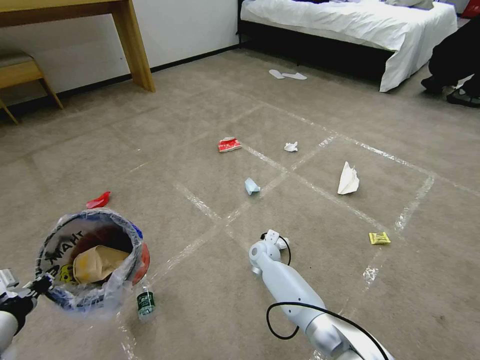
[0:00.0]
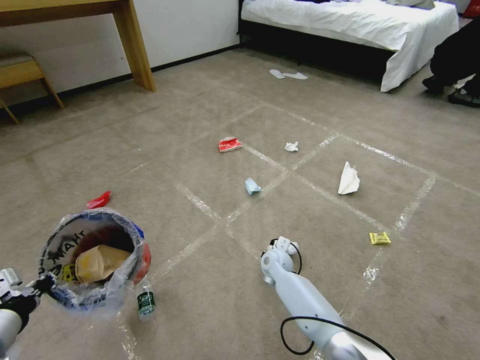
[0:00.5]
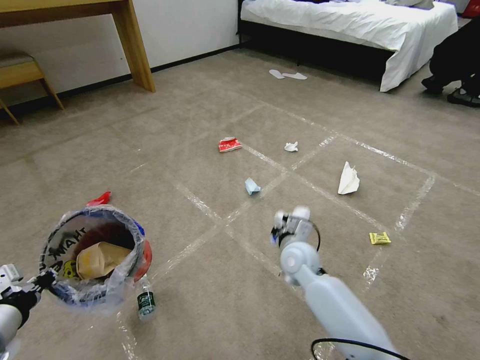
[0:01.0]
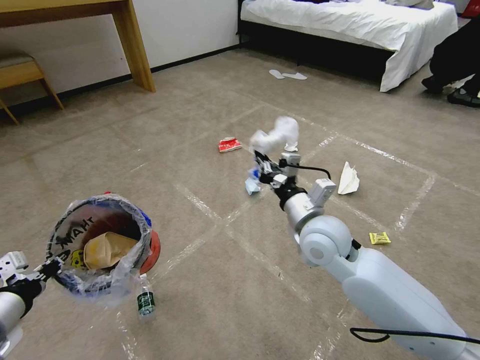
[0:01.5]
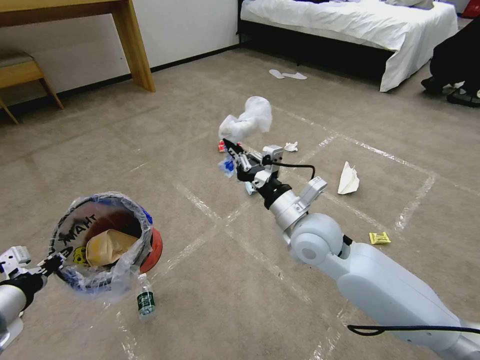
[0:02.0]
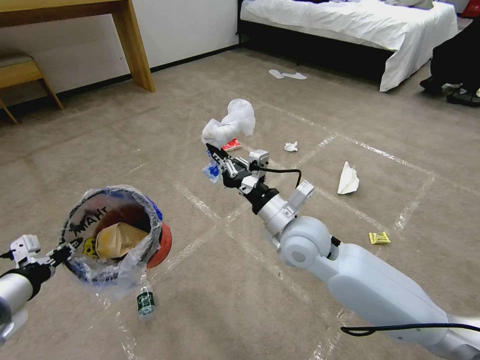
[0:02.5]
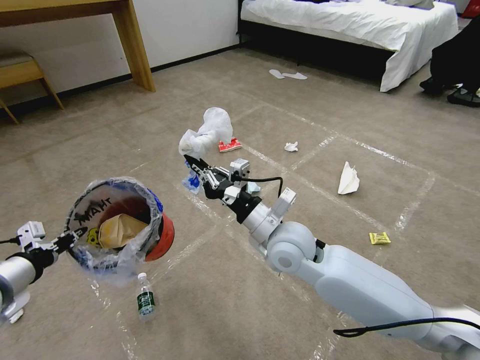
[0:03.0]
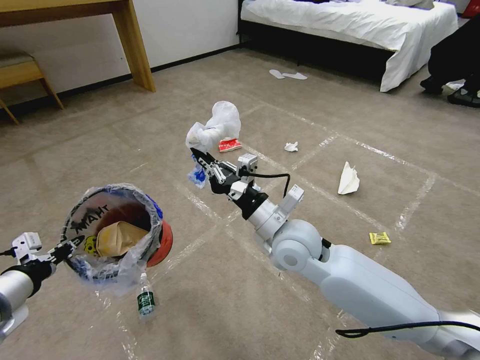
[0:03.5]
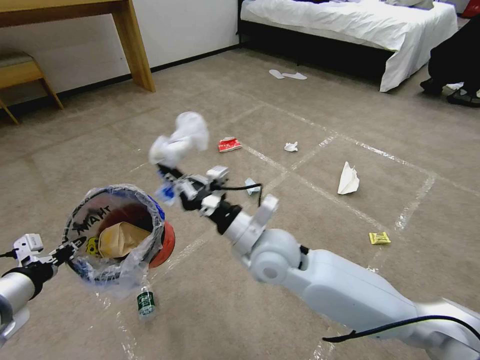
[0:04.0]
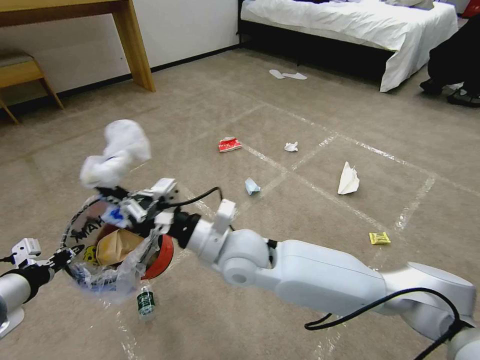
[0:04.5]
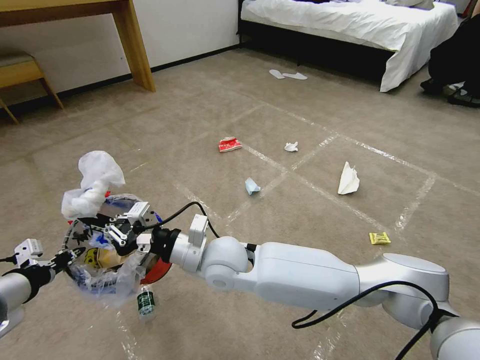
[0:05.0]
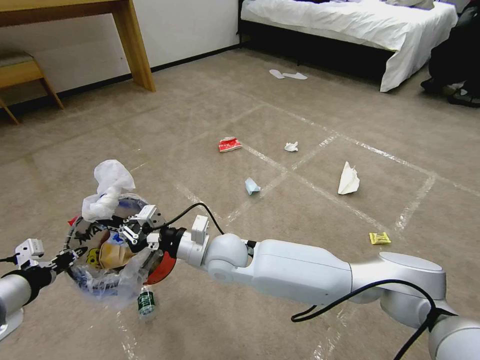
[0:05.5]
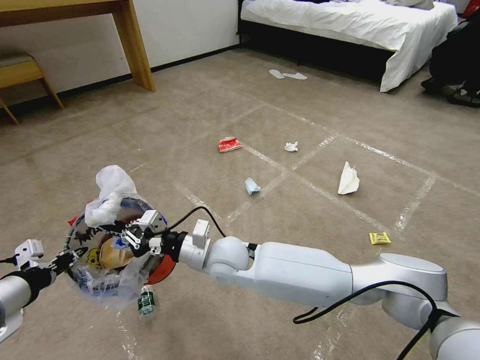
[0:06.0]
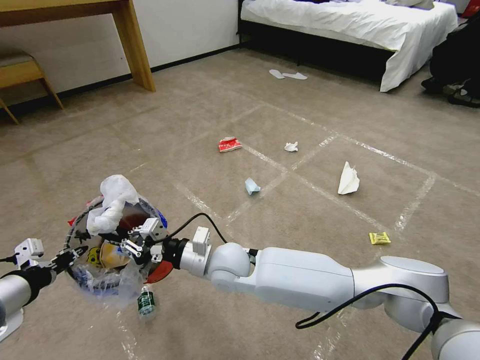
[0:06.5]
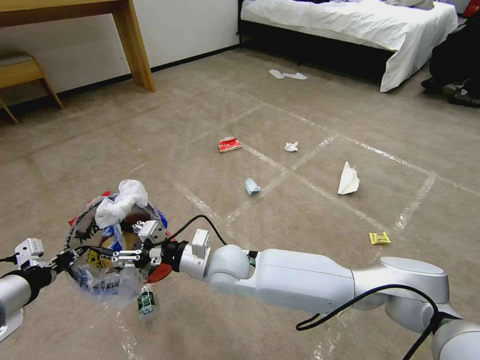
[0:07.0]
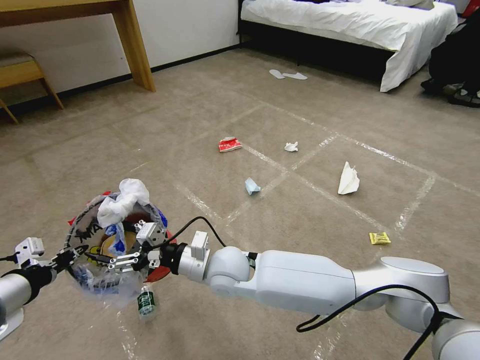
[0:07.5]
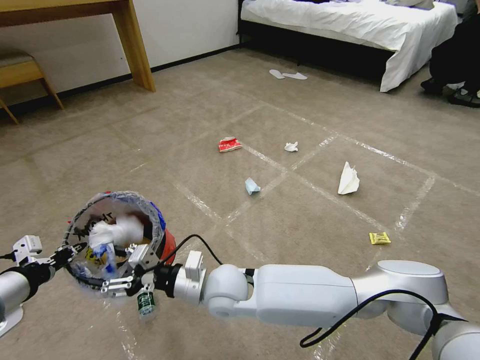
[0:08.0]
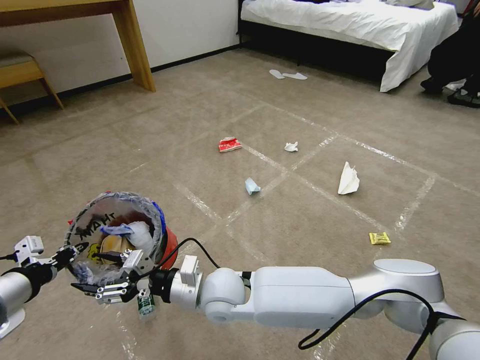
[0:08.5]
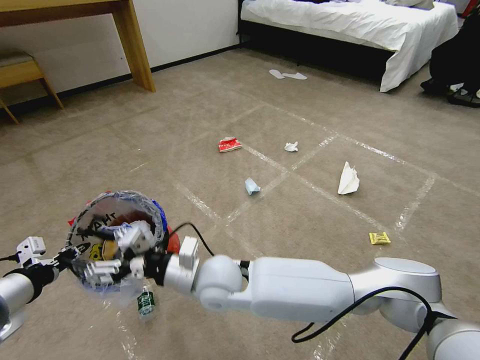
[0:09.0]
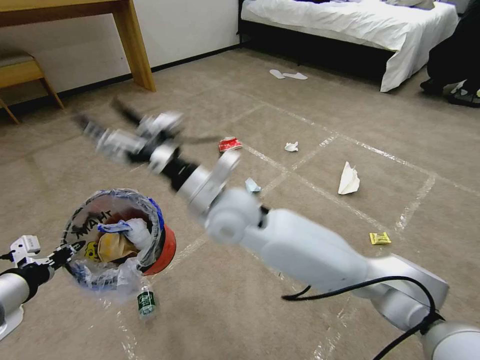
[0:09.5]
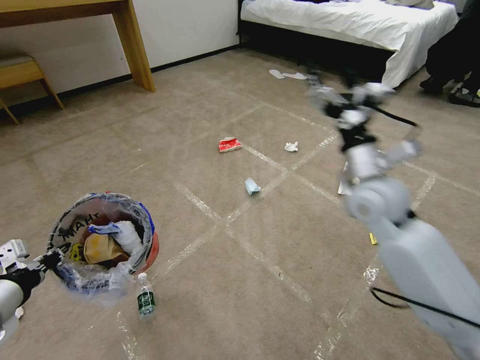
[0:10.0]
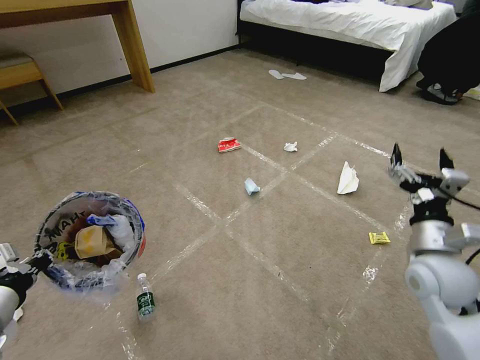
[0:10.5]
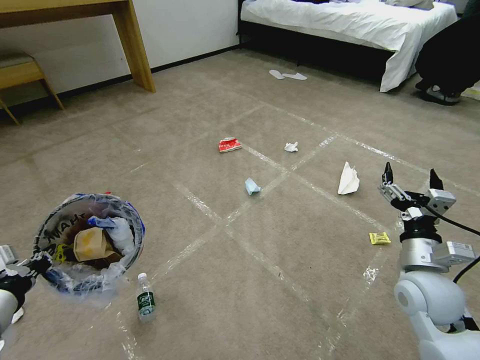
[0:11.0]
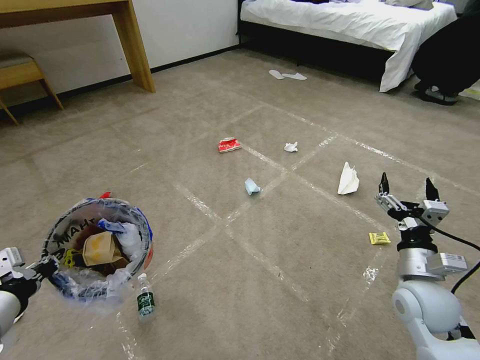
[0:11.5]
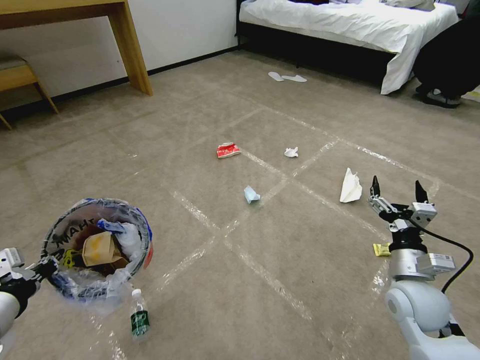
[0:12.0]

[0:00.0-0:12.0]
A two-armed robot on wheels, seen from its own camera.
Task of the whole recording: Pick up the trash bin and place the garbage on the floor into it.
0:00.0 to 0:02.0: The right gripper heads upward and backward, covering some 30 cm.
0:02.0 to 0:04.0: The right gripper shifts roughly 10 cm to the left.
0:04.0 to 0:06.0: The right gripper moves to the left and downward, roughly 10 cm.
0:06.0 to 0:08.0: The right gripper is displaced backward by about 5 cm, and opens.
0:08.0 to 0:10.0: The right gripper goes approximately 35 cm to the right and upward.
0:10.0 to 0:12.0: The right gripper goes about 25 cm downward, backward and to the right.

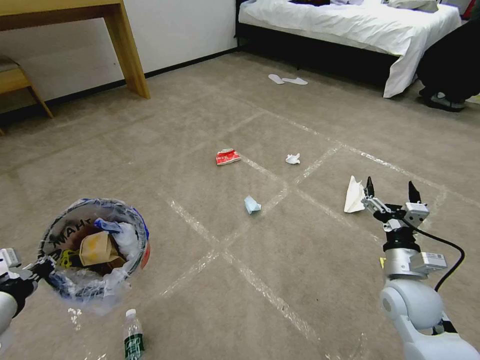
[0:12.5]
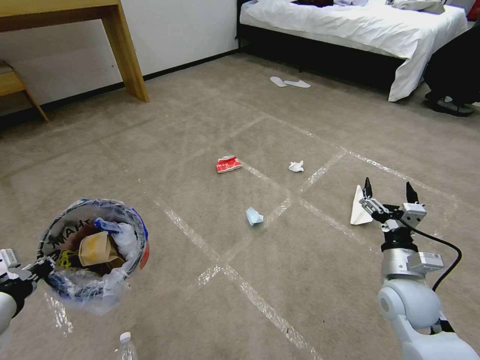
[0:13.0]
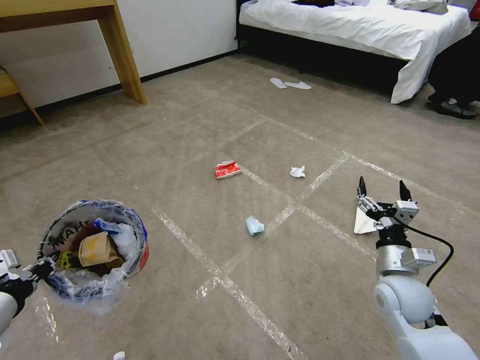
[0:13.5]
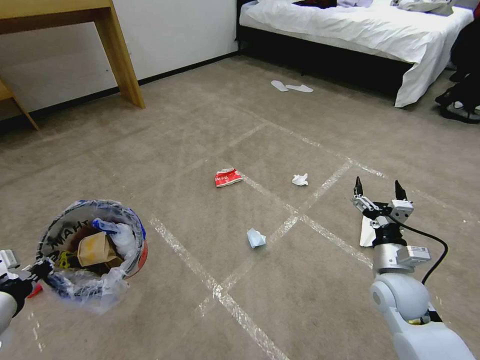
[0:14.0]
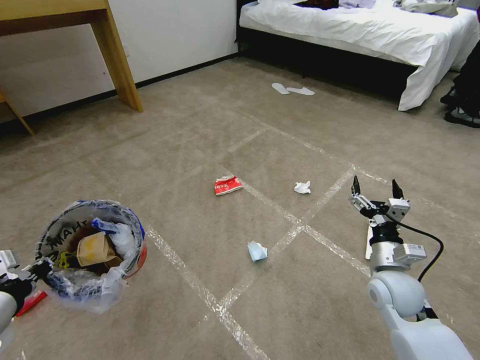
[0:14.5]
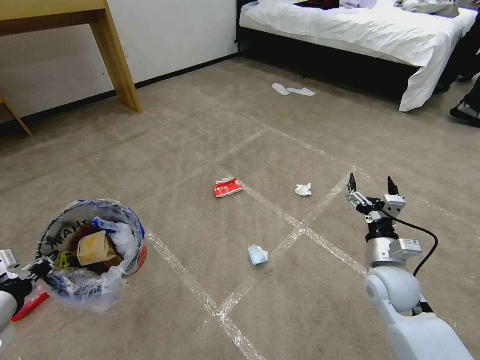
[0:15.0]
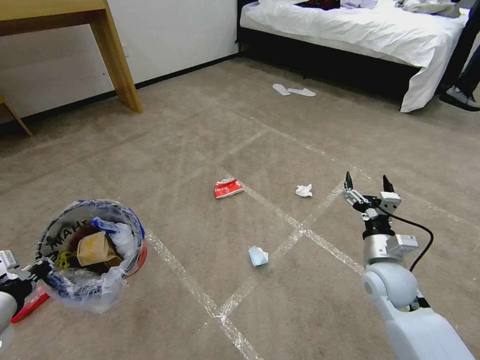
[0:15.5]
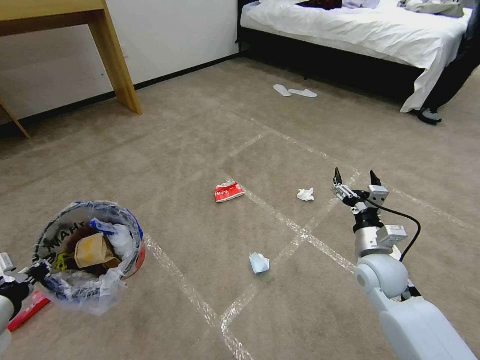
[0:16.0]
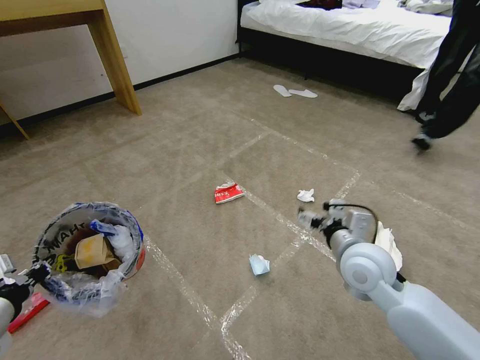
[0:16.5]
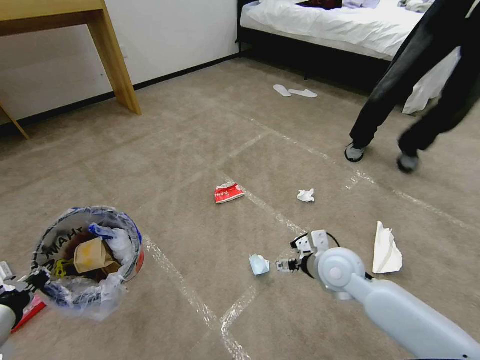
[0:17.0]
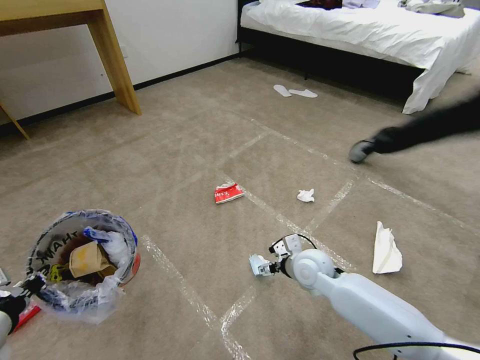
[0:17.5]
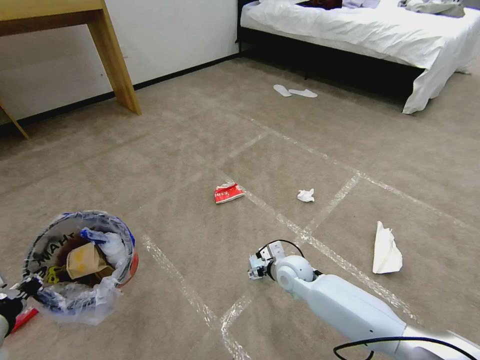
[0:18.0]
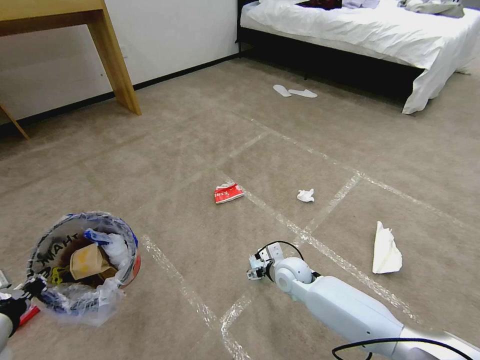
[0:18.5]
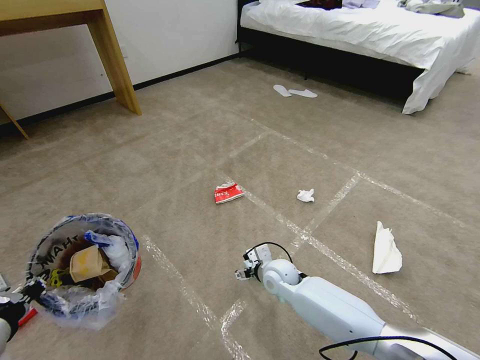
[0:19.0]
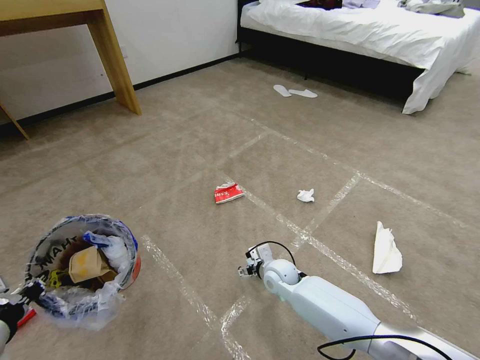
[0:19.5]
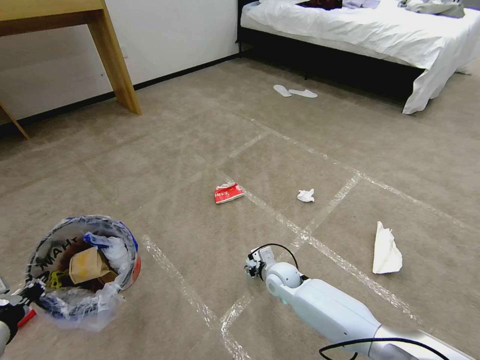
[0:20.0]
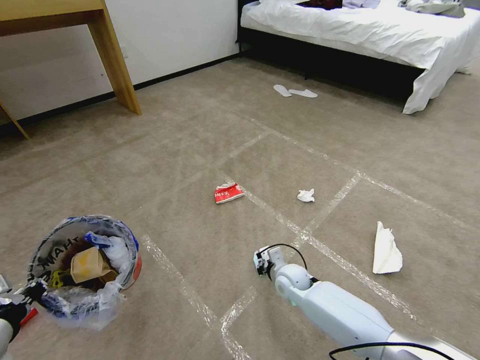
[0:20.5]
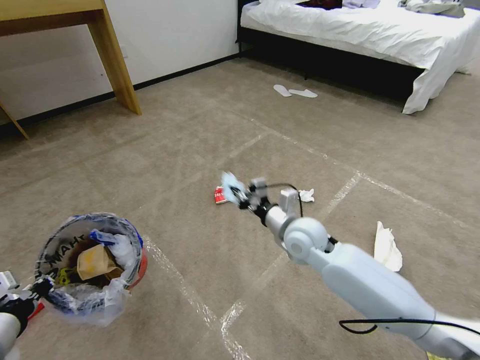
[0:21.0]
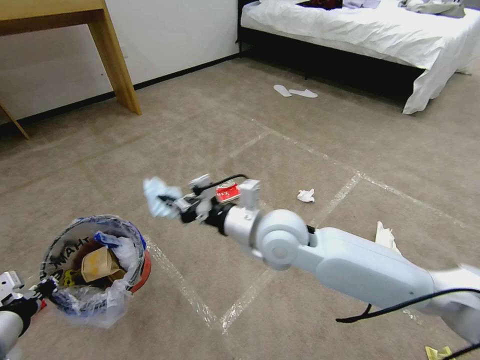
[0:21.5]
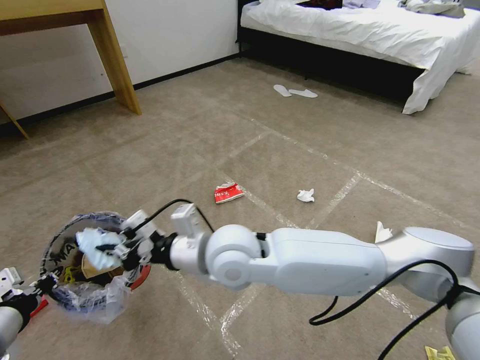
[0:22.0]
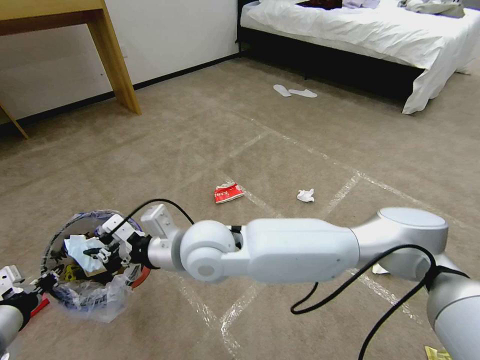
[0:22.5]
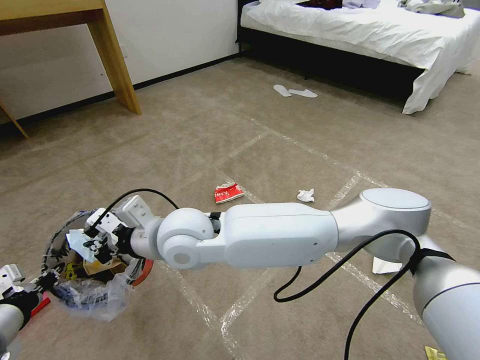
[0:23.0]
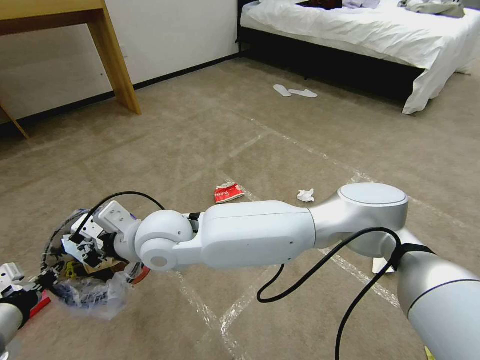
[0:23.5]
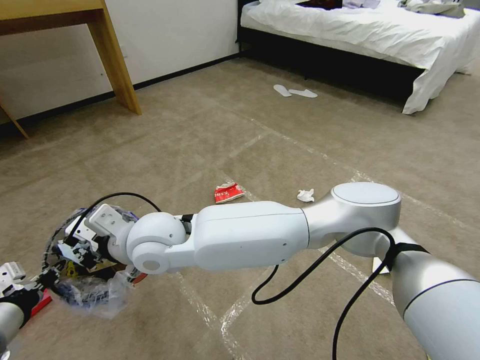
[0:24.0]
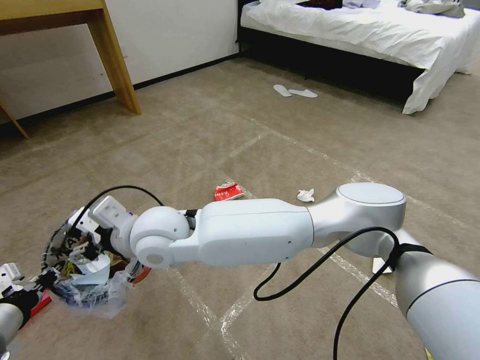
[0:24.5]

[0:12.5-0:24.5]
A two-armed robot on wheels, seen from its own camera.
Task of the whole recording: Pick up the trash bin and place the garbage on the floor into it.
0:14.5 to 0:16.5: The right gripper shifts about 10 cm to the left and upward.
0:16.5 to 0:18.5: The right gripper moves downward and to the left, about 20 cm.
0:18.5 to 0:20.5: The right gripper closes its fingers.
0:20.5 to 0:22.5: The right gripper heads upward and to the left, covering approximately 35 cm.
0:22.5 to 0:24.5: The right gripper heads to the left, covering approximately 10 cm, and opens.

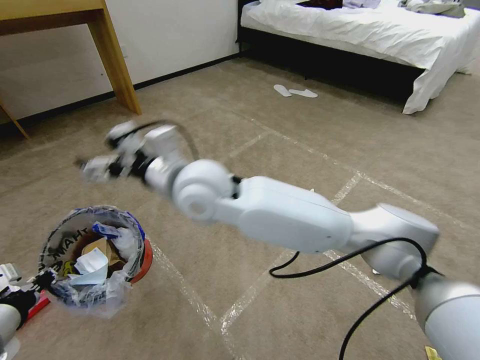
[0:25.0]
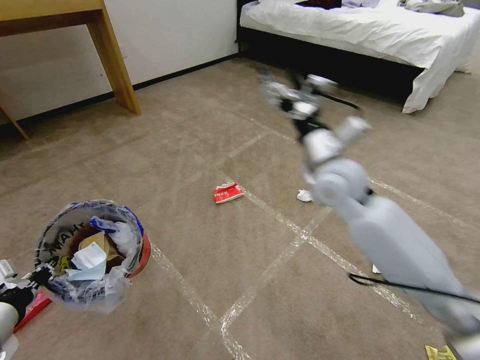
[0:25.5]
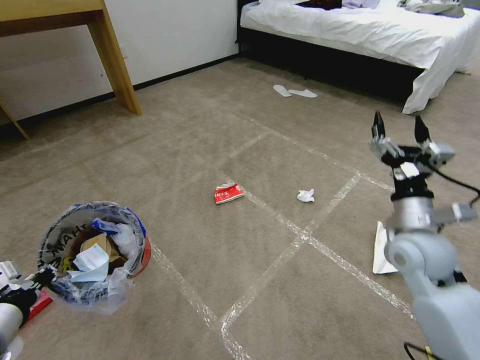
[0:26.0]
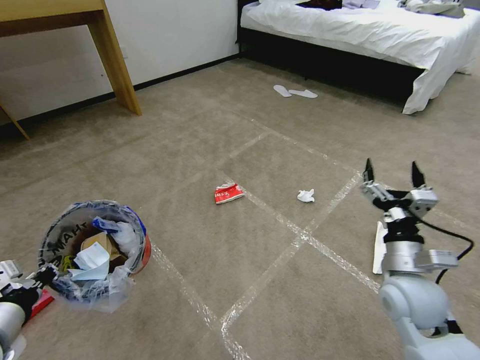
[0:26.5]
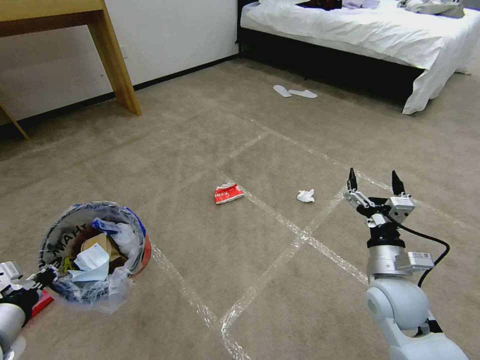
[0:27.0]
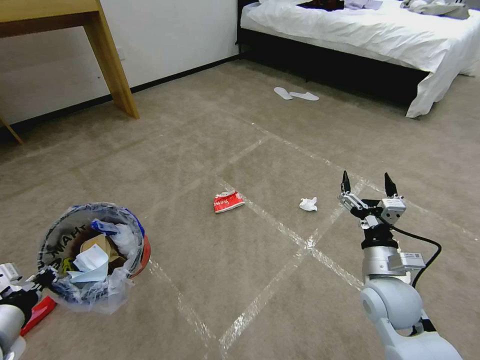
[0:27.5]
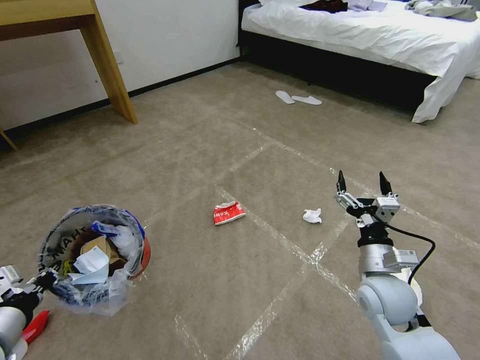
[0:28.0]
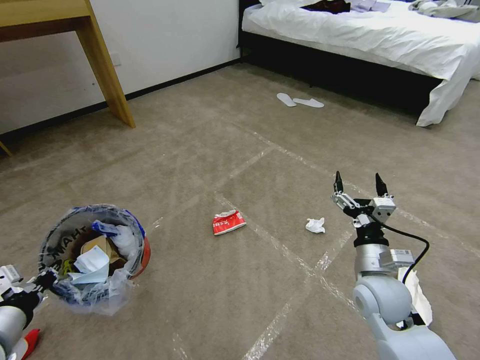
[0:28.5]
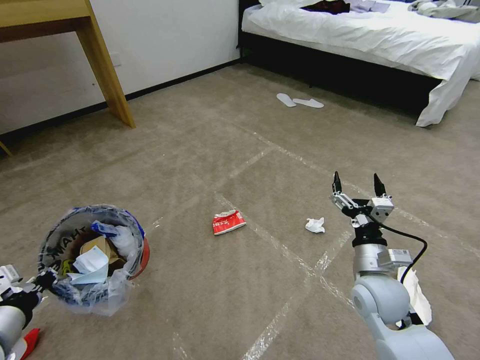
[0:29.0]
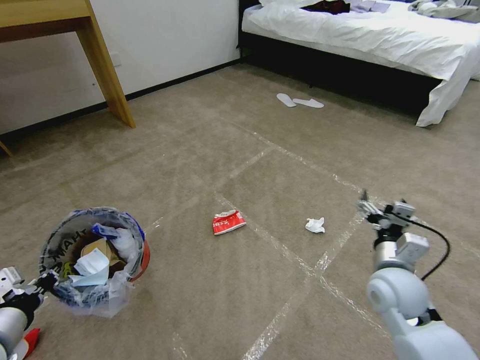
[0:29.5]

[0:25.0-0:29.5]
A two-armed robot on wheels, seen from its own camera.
Task of the whole recording: Pick up the trash bin and place the garbage on the floor into it.
0:25.0 to 0:27.0: The right gripper goes some 40 cm to the right and downward.
